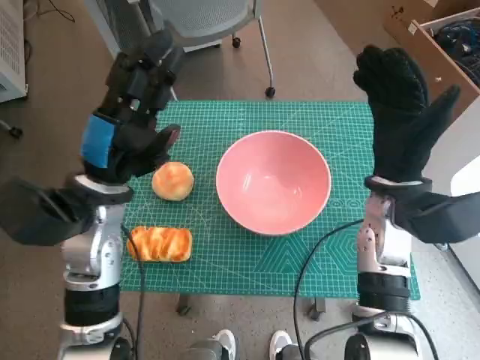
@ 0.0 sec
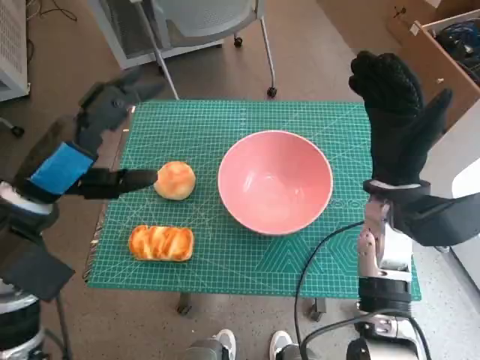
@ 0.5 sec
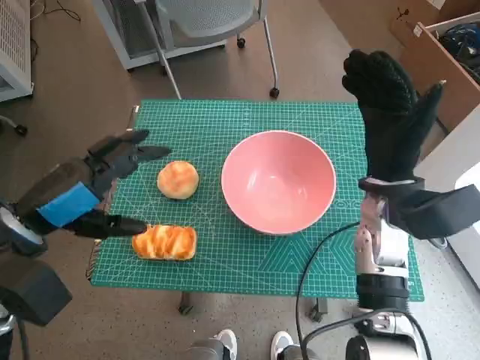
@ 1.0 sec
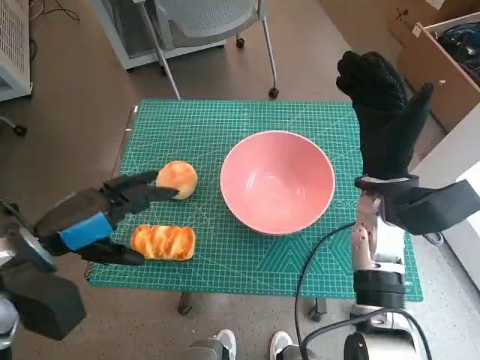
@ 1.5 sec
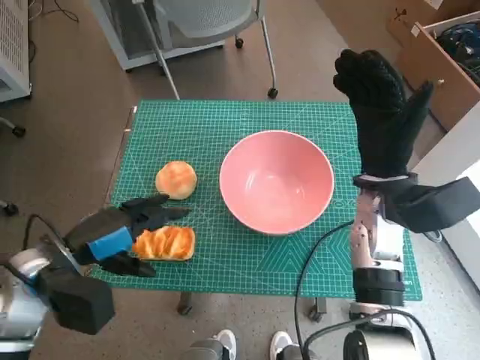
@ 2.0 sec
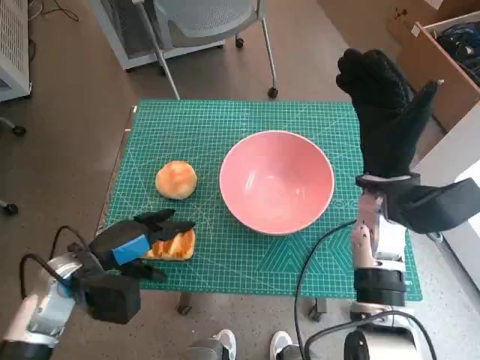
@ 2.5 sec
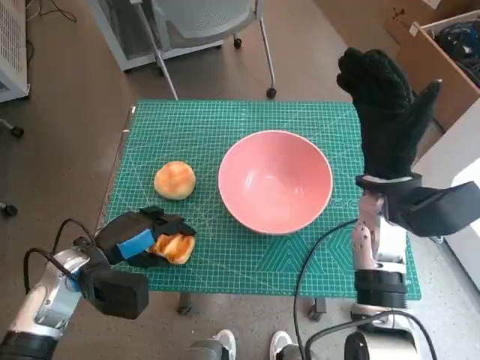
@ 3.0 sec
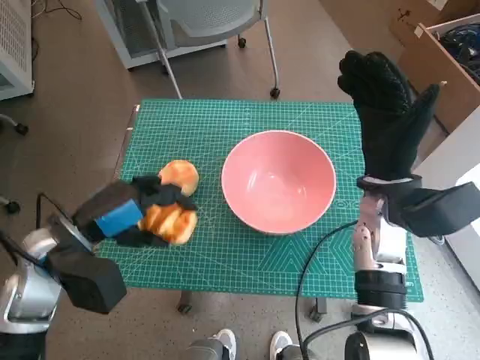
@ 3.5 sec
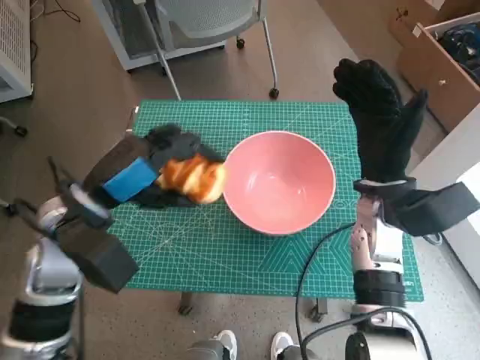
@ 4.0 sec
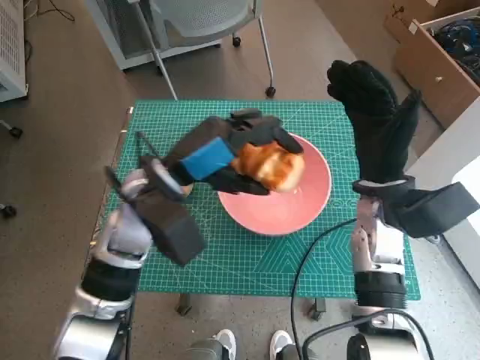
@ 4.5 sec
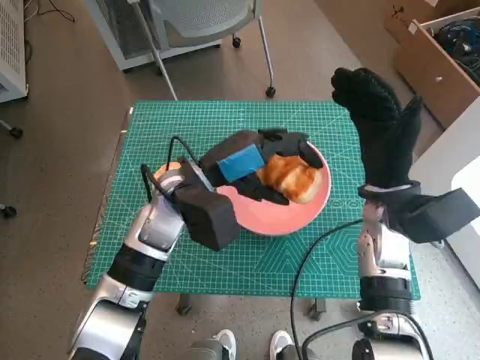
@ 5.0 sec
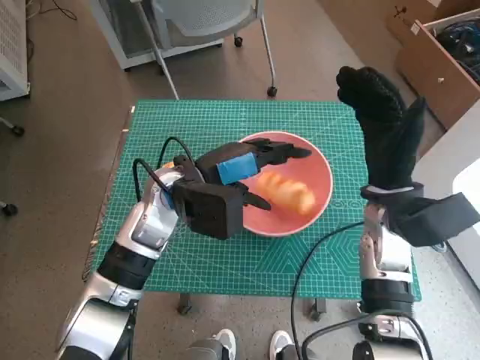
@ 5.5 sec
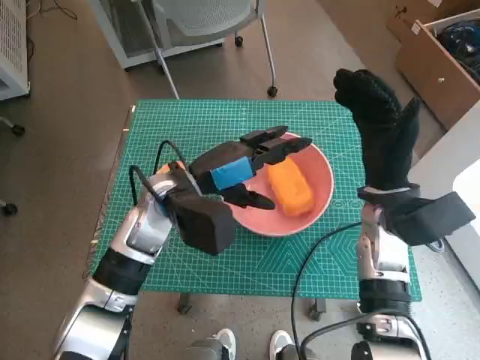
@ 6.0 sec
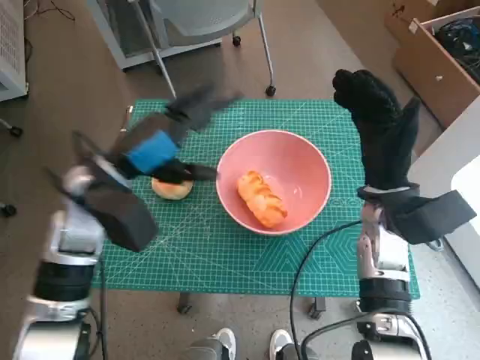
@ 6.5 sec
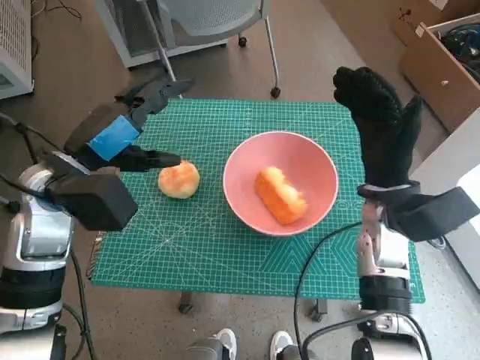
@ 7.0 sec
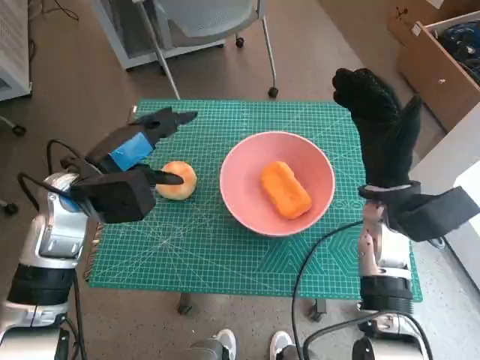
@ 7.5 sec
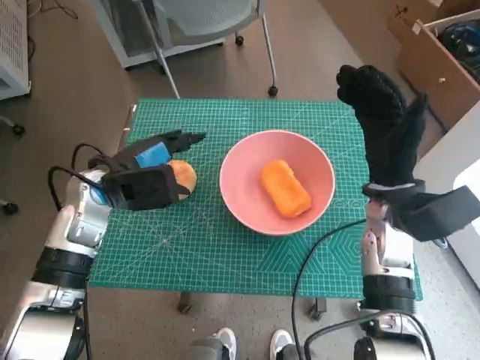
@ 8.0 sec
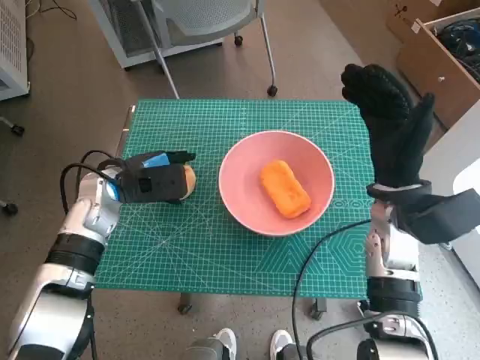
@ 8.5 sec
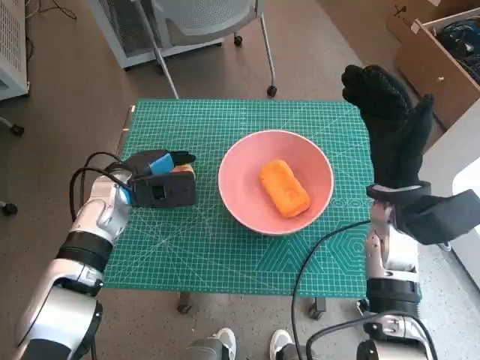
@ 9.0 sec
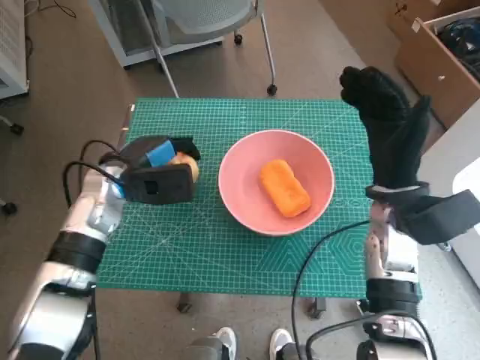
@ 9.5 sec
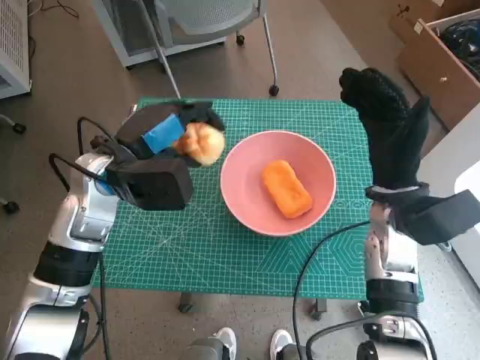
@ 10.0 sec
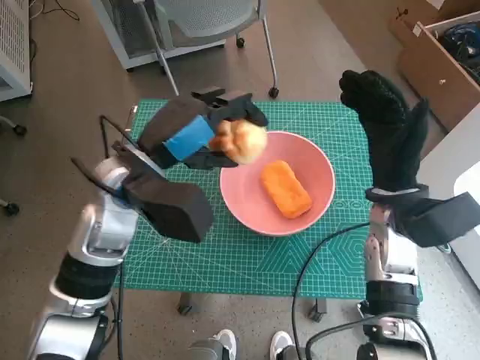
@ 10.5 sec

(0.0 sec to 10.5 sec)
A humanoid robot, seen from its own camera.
Step, 0.0 sec - 3.0 sec: Grasp the long bread with left hand.
Step, 3.5 sec - 5.5 sec: Place the long bread in pink bowl with left hand.
Step, 6.0 sec - 9.0 sec: Grasp the round bread with left hand.
0.0 sec - 2.0 sec: The left hand moves to the left and backward, approximately 10 cm.
2.0 sec - 4.0 sec: The left hand shifts roughly 5 cm to the right.
4.0 sec - 6.5 sec: The left hand goes to the right and returns, some 10 cm each way.
6.5 sec - 8.5 sec: The left hand shifts roughly 5 cm downward.
8.5 sec - 10.5 sec: The left hand moves upward and to the right, about 10 cm.

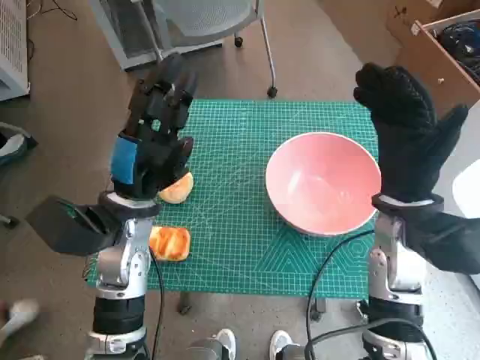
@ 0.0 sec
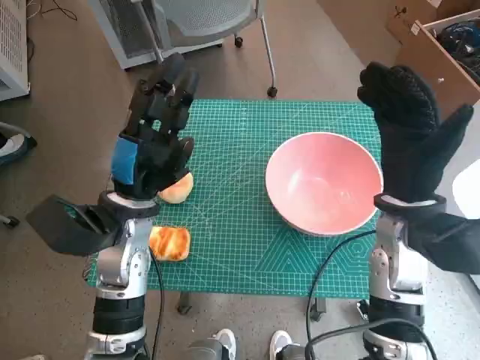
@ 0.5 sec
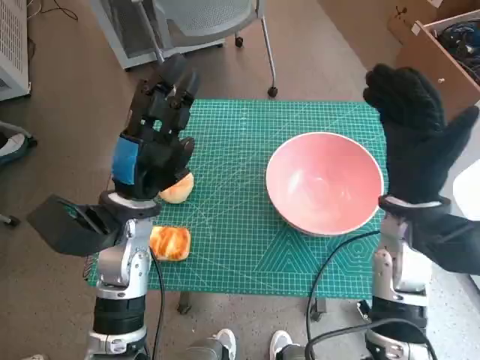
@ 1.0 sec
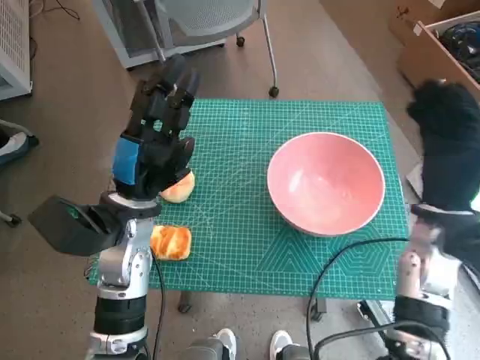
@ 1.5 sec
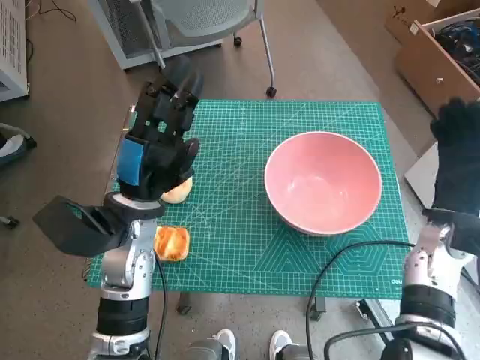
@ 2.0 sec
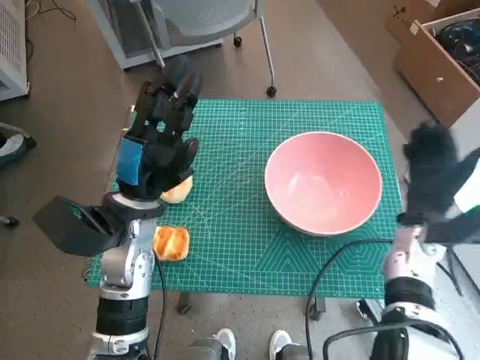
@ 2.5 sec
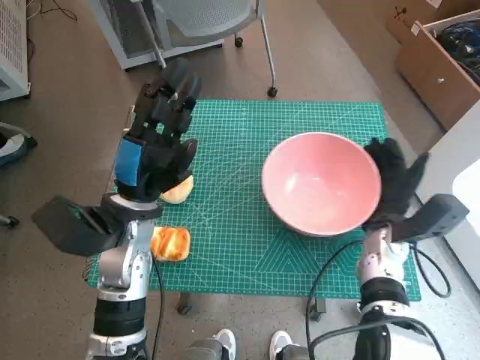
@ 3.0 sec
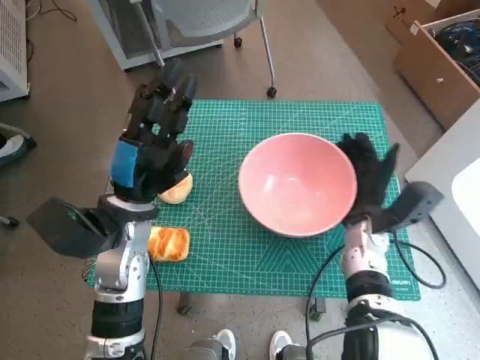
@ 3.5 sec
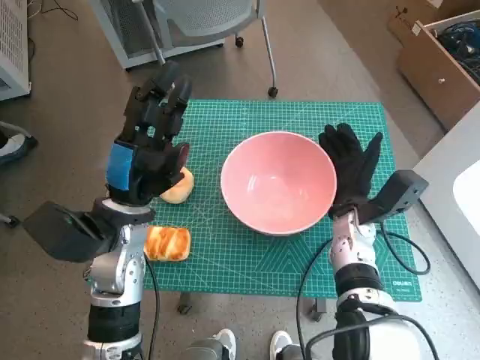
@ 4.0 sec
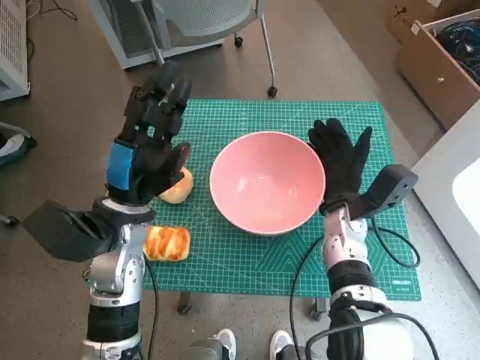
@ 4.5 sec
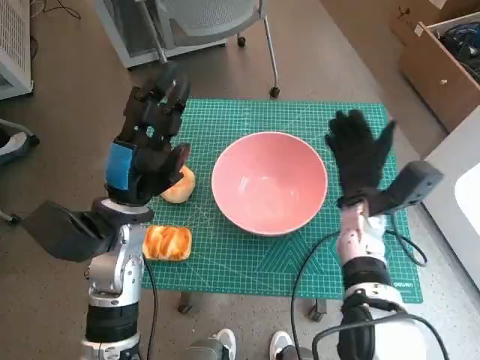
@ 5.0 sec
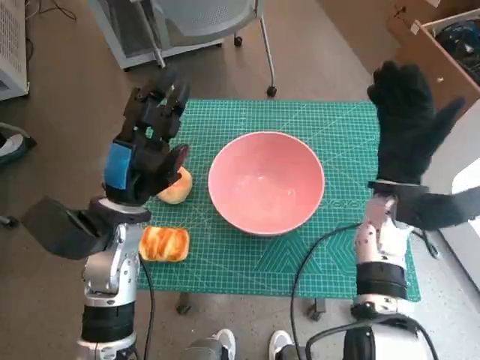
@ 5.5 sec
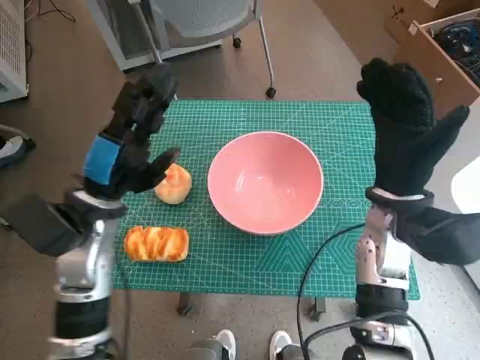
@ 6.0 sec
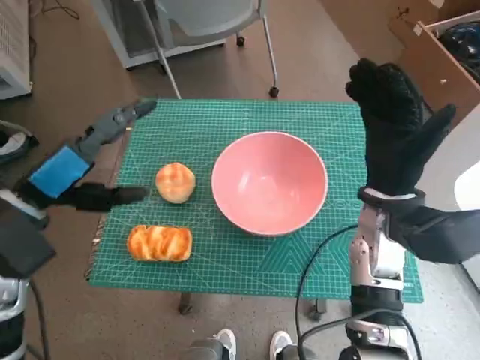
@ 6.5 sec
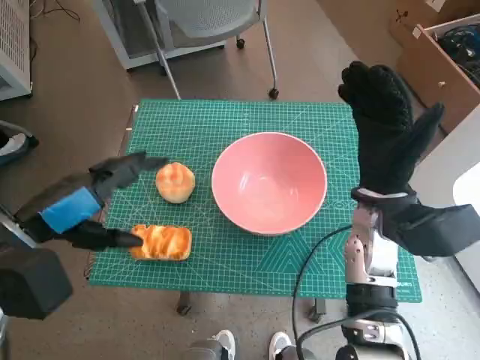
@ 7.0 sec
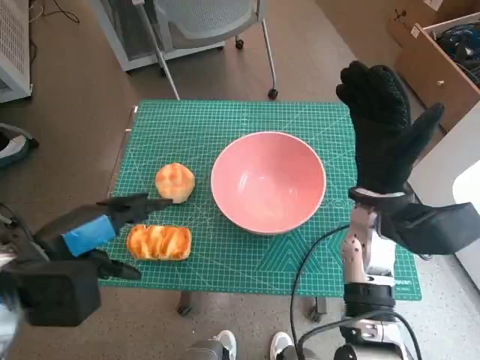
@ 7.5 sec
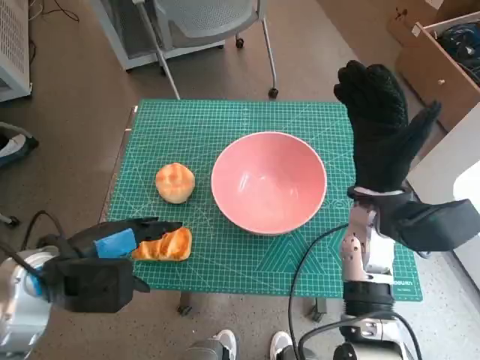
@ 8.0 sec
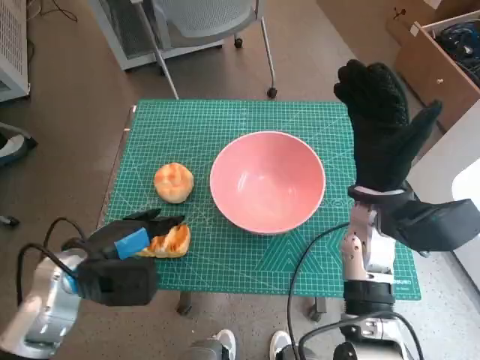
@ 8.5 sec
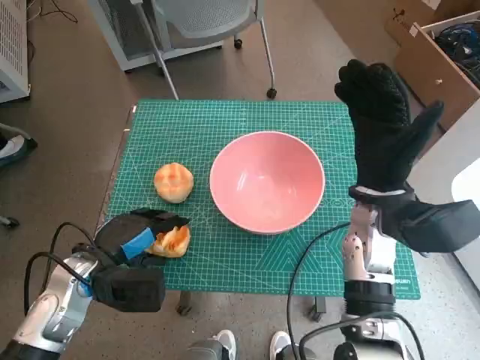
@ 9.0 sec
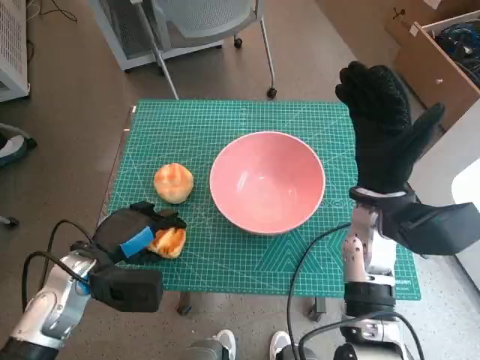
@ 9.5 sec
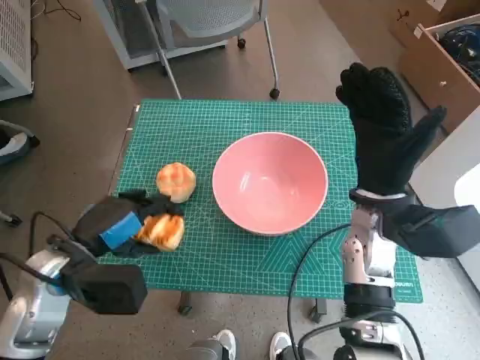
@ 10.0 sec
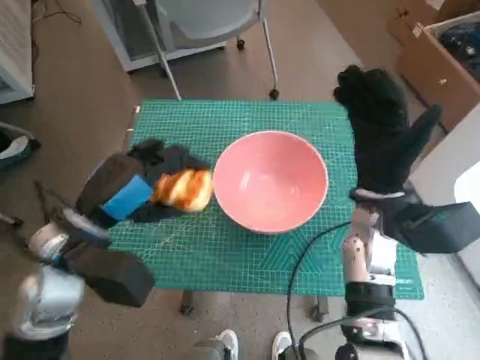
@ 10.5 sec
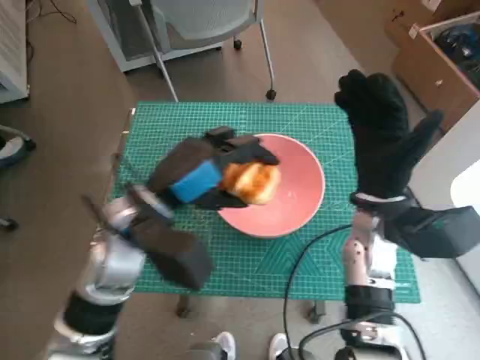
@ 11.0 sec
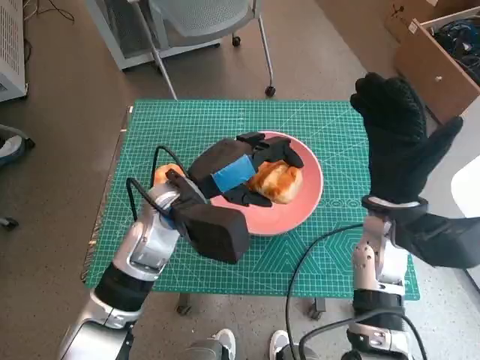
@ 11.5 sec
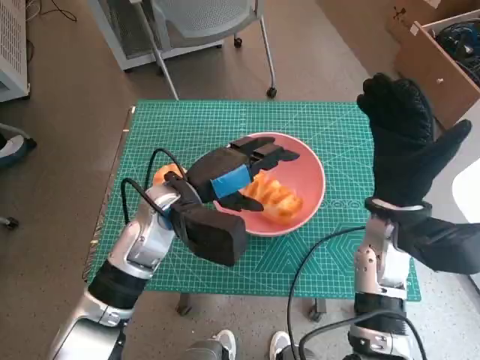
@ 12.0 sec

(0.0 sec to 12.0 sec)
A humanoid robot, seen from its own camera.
Step, 0.0 sec - 4.5 sec: Move the pink bowl to the center of table with right hand.
Step, 5.0 sec - 9.0 sec: Grasp the long bread with left hand.
2.0 sec - 4.0 sec: The right hand heads to the left, covering approximately 10 cm.
4.0 sec - 6.0 sec: The right hand shifts some 10 cm upward.
6.0 sec - 8.0 sec: The left hand goes about 5 cm backward.
10.0 sec - 12.0 sec: The left hand shifts about 15 cm to the right and forward.

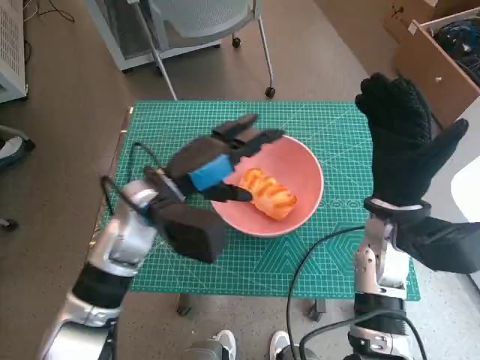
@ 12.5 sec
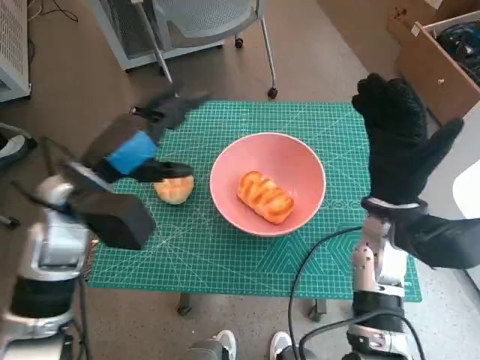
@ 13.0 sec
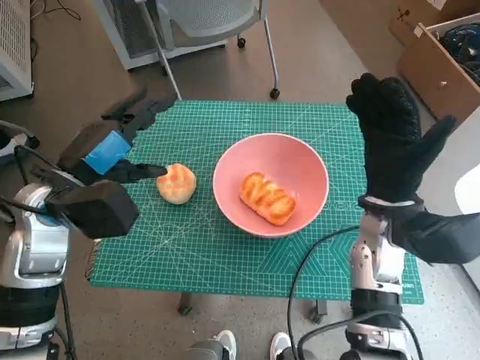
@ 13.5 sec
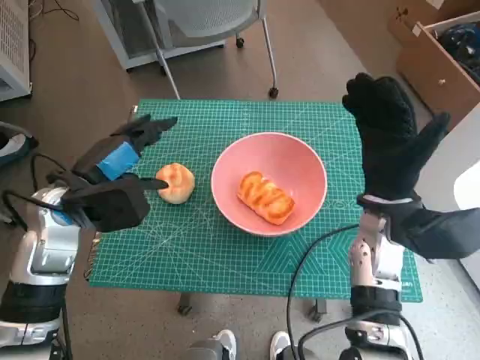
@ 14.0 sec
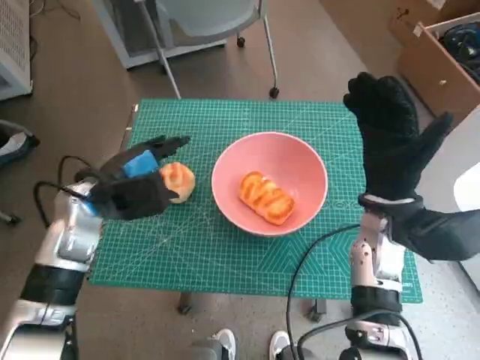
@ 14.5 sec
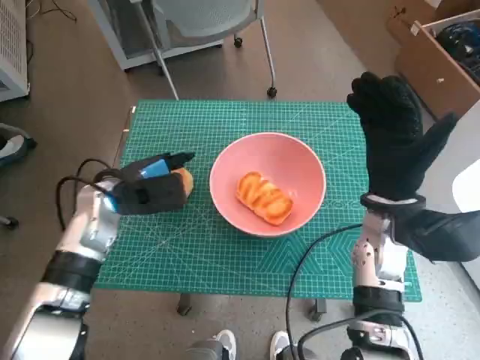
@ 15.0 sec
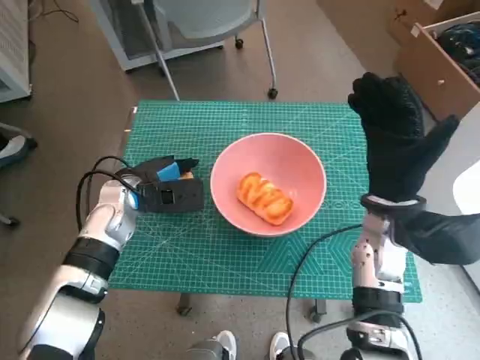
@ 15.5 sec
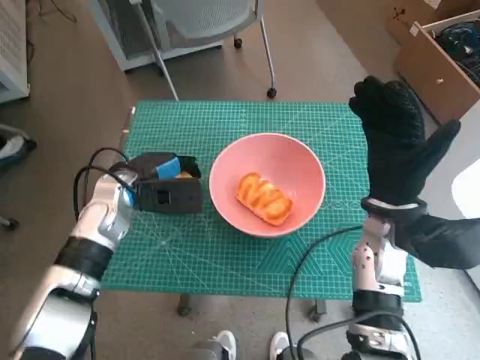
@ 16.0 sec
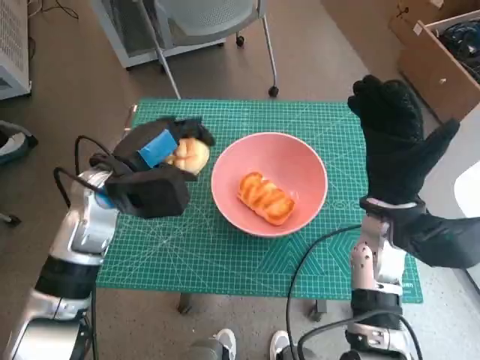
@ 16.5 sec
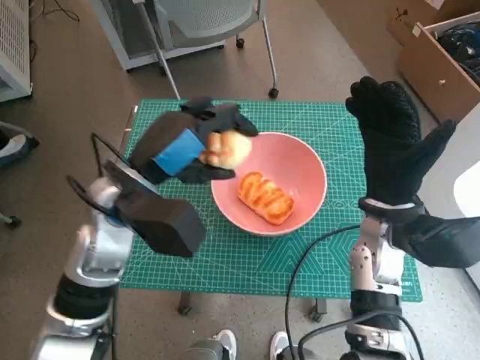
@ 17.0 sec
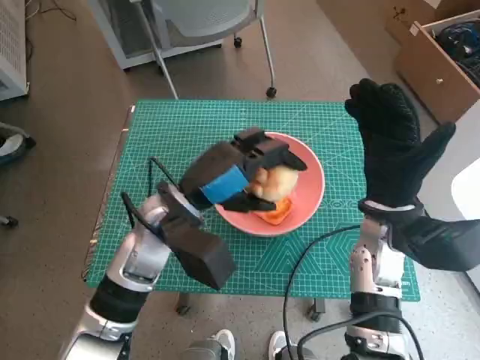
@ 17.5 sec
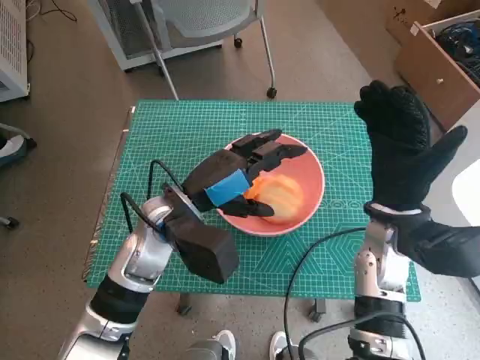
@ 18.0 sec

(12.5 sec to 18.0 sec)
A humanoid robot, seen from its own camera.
Step, 12.5 sec - 15.5 sec: Grasp the round bread with left hand.
Step, 16.0 sec - 18.0 sec: Place the round bread in pink bowl with left hand.
12.5 sec - 14.5 sec: The left hand heads to the left, covering some 10 cm.
14.5 sec - 16.0 sec: The left hand ends up approximately 5 cm from where it was.
16.0 sec - 18.0 sec: The left hand travels to the right and backward by approximately 10 cm.
